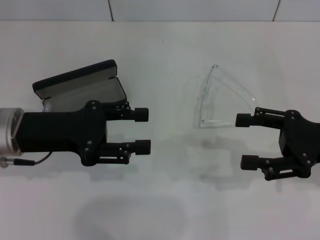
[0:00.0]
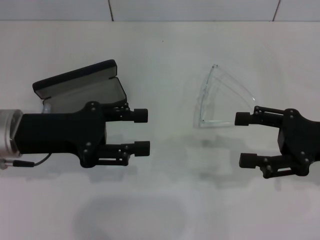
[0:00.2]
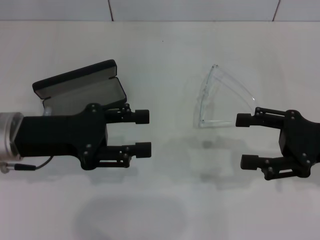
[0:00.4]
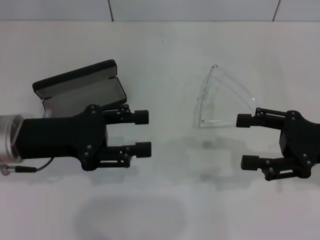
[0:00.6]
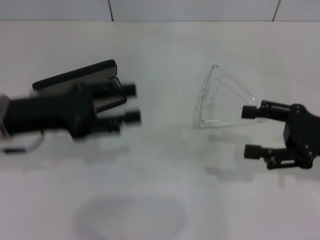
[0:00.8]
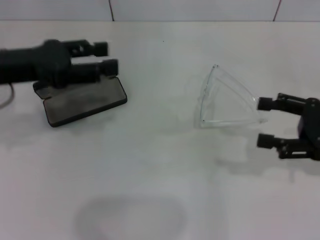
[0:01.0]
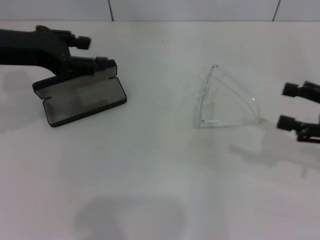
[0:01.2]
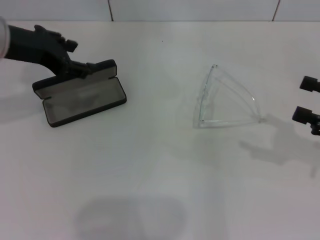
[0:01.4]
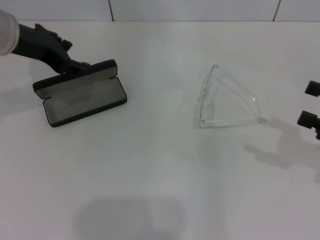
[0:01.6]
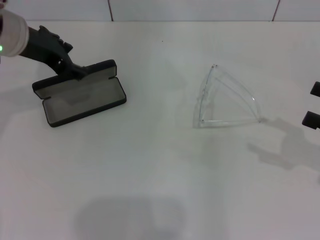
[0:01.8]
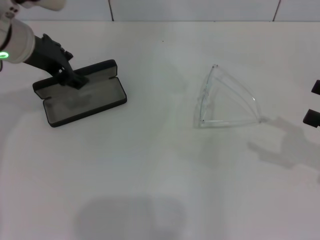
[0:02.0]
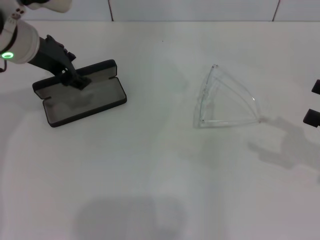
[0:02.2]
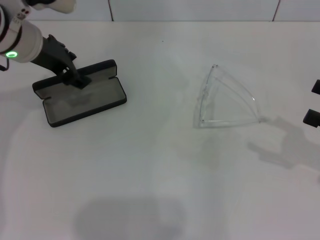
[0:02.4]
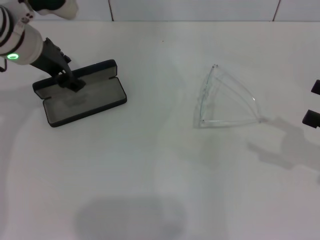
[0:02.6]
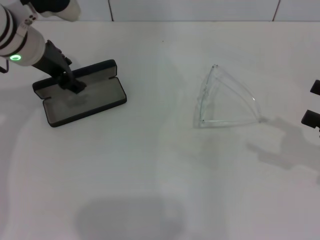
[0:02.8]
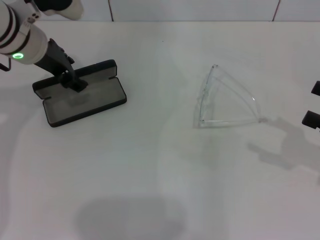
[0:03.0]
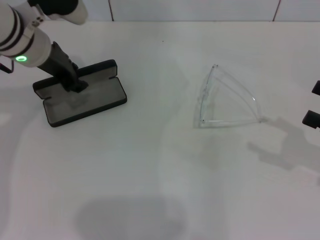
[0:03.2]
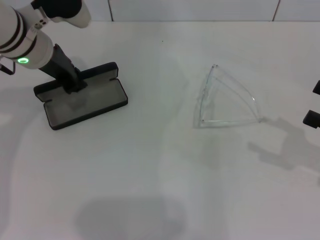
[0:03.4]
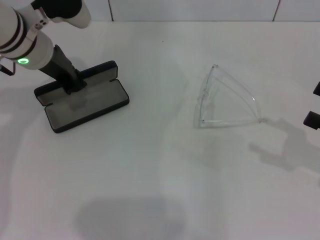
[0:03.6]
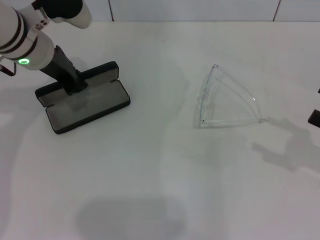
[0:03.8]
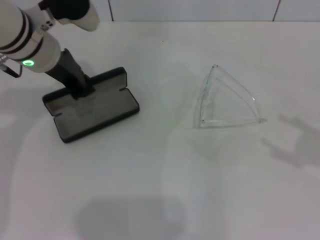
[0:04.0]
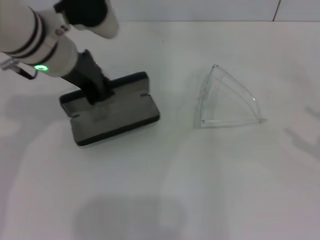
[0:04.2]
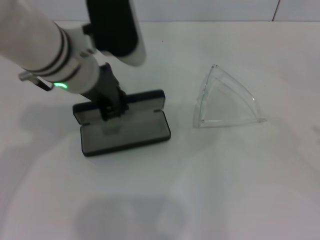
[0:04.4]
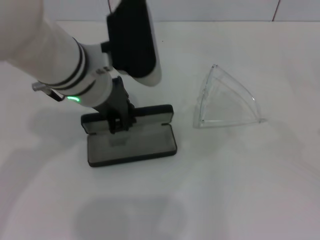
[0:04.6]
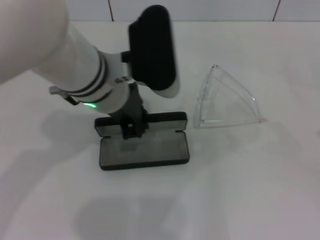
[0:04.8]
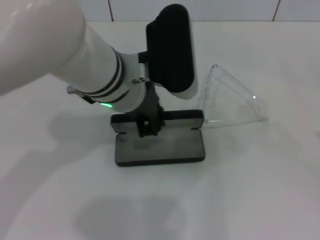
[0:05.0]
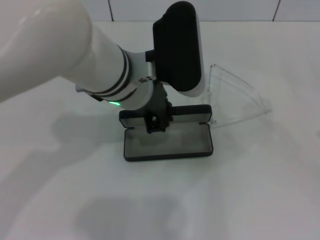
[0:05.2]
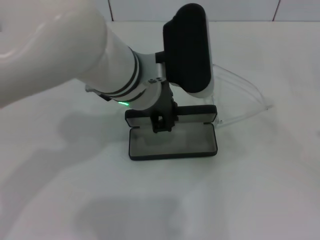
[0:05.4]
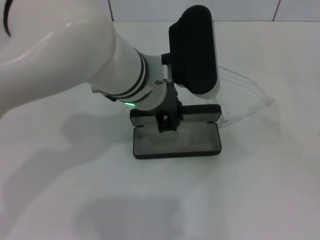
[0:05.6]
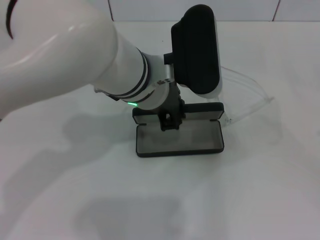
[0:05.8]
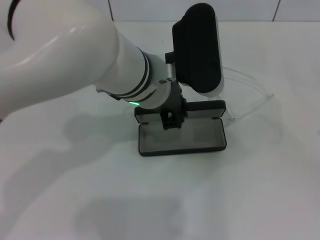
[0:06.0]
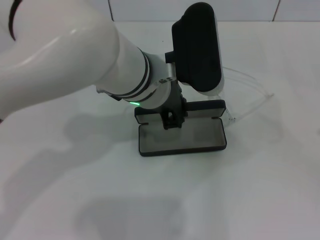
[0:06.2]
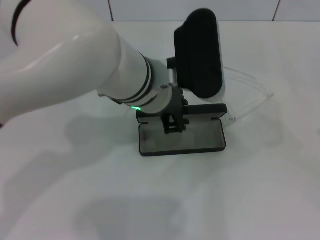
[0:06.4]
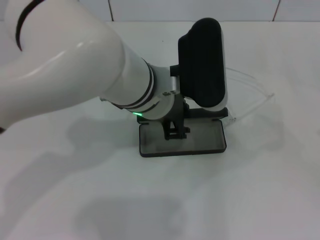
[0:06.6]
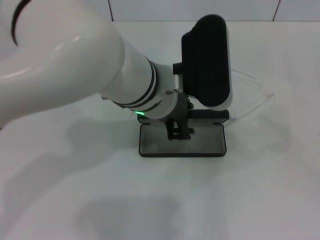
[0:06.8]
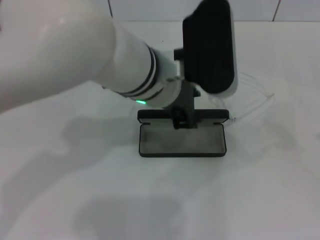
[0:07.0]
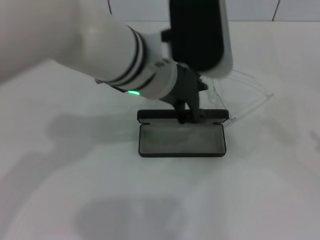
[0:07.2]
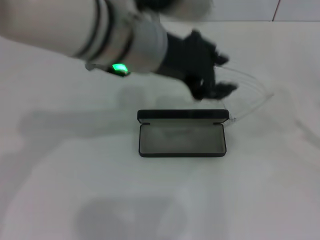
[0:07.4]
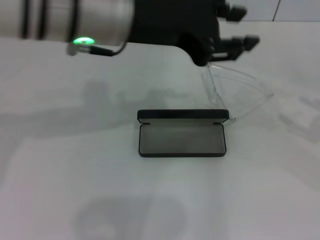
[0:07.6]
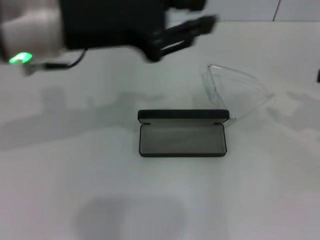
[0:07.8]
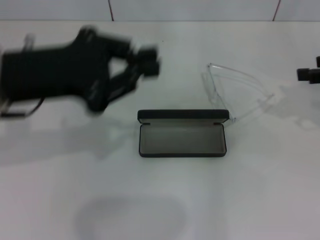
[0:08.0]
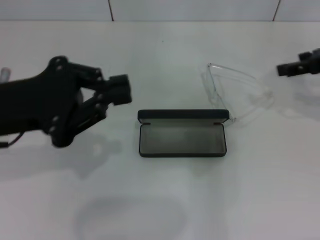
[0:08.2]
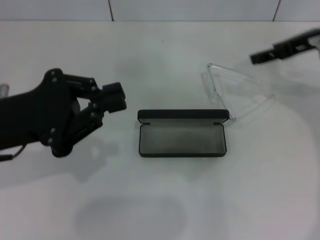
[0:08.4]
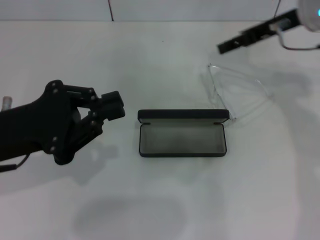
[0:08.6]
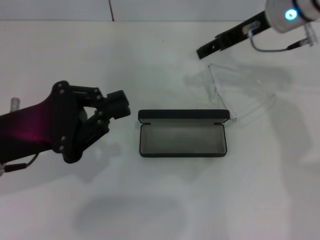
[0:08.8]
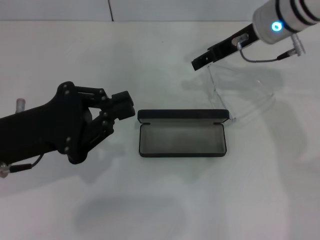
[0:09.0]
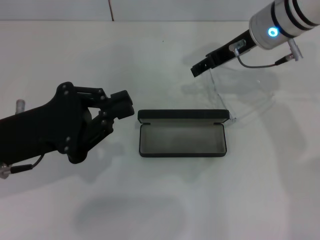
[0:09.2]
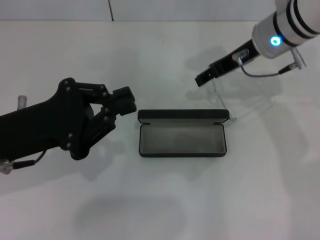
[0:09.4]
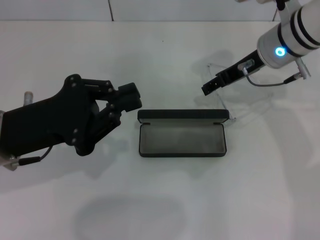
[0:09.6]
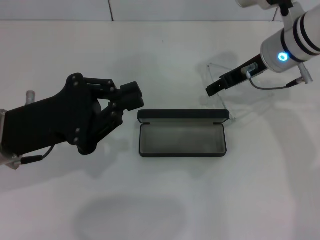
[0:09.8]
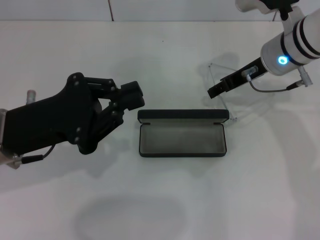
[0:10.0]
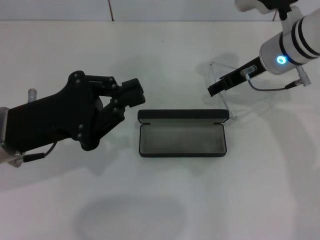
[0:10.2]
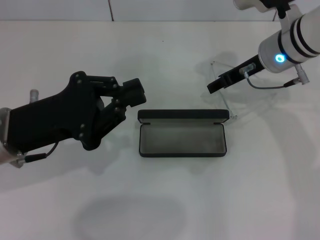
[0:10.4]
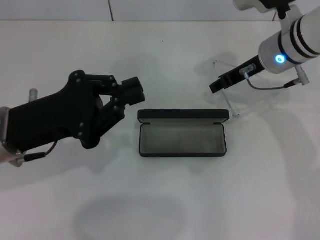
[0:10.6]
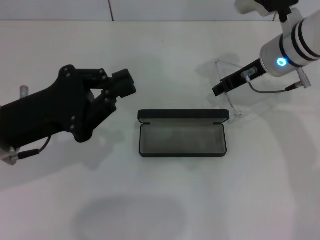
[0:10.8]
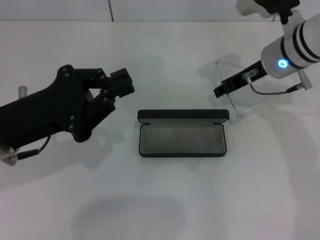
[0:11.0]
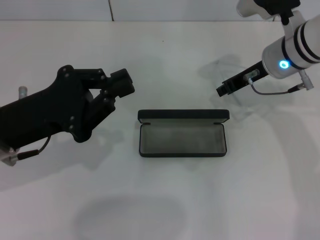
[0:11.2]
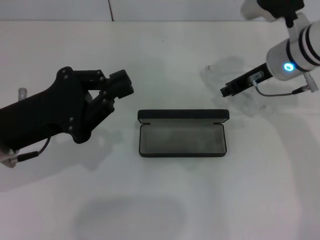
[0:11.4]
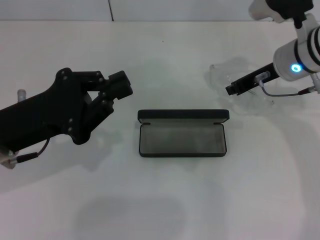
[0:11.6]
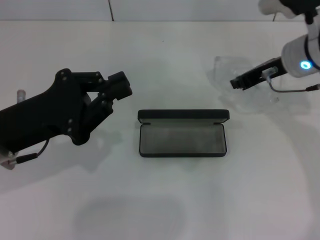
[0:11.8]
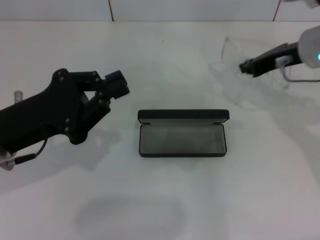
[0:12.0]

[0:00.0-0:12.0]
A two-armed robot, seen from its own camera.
Step, 0:00.0 to 0:03.6: Grab the glasses case with your left hand.
Step, 0:03.8 to 0:06.8: Place the glasses case in the center of the table with your left hand.
Step, 0:07.0 to 0:11.4: Grab the eyeglass frame with your right hand.
0:00.0 to 0:01.6: The right gripper shifts some 5 cm to the right. The left gripper is displaced forward and upward by some 15 cm.
0:01.6 to 0:03.0: The left gripper moves approximately 5 cm.
0:03.0 to 0:04.4: The grippers both shift to the right and backward by some 10 cm. The left gripper closes up.
0:04.4 to 0:06.0: The left gripper heads to the right, covering roughly 10 cm.
0:06.0 to 0:07.6: The right gripper moves forward, about 10 cm; the left gripper moves upward and to the left, about 10 cm.
0:07.6 to 0:09.0: The right gripper travels to the left and forward by roughly 30 cm. Meanwhile the left gripper moves to the left, downward and backward, roughly 20 cm, and closes up.
0:09.0 to 0:10.4: The grippers stay close to where they were, moving slightly.
0:10.4 to 0:12.0: The right gripper shifts by some 5 cm, and closes its fingers.

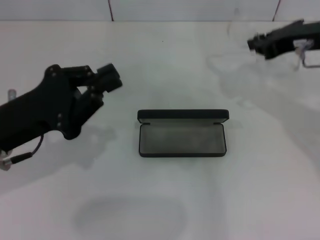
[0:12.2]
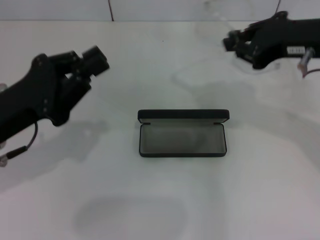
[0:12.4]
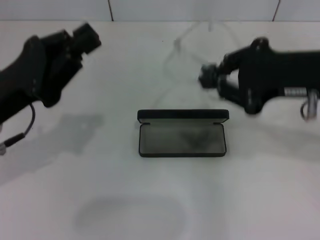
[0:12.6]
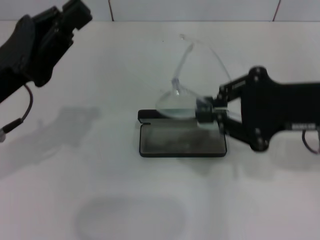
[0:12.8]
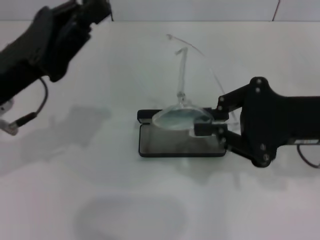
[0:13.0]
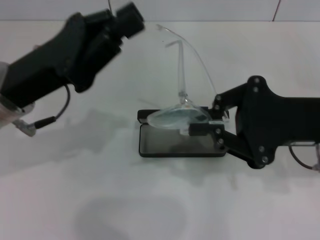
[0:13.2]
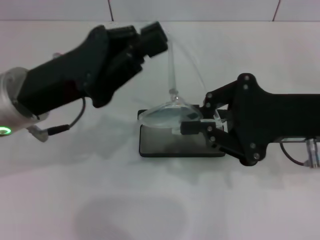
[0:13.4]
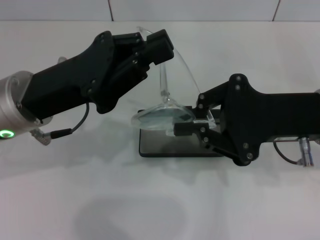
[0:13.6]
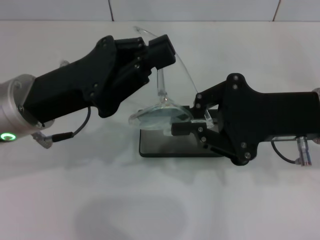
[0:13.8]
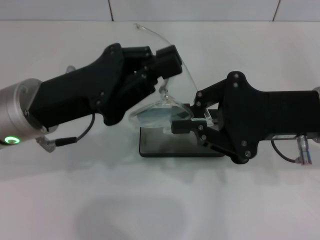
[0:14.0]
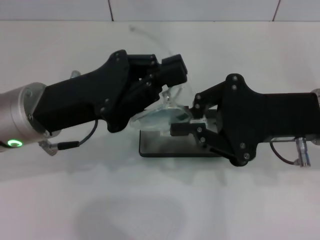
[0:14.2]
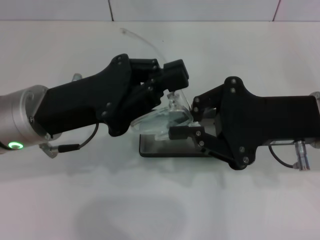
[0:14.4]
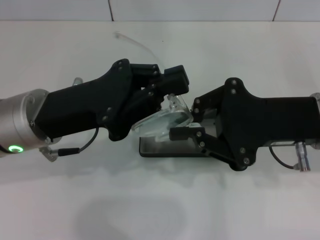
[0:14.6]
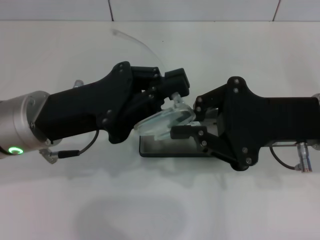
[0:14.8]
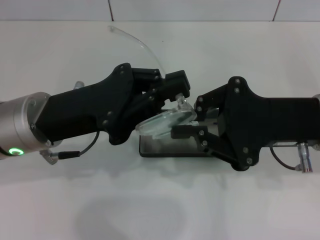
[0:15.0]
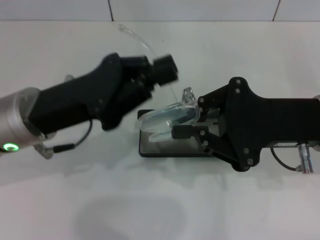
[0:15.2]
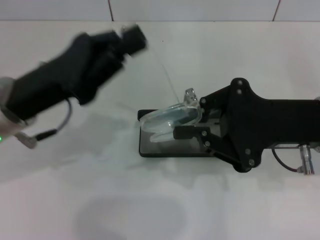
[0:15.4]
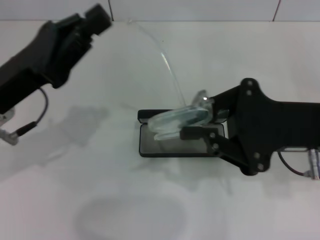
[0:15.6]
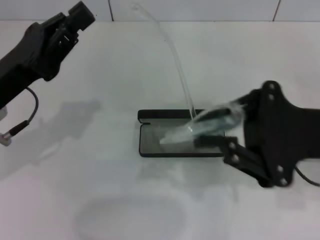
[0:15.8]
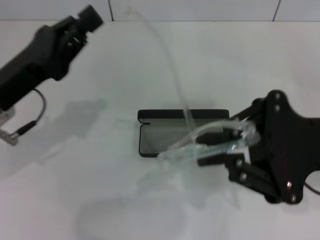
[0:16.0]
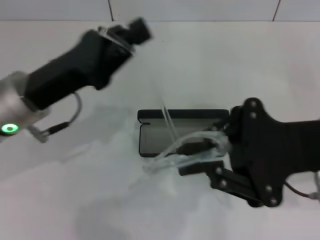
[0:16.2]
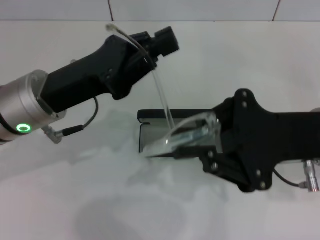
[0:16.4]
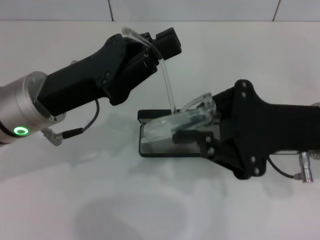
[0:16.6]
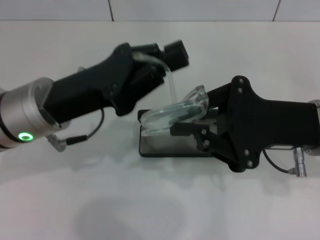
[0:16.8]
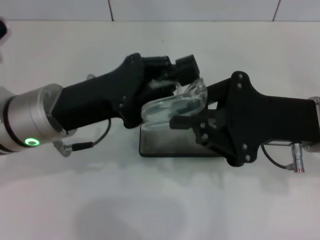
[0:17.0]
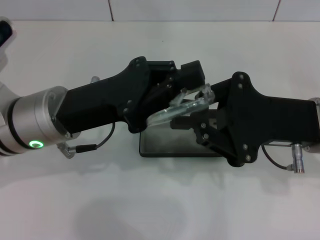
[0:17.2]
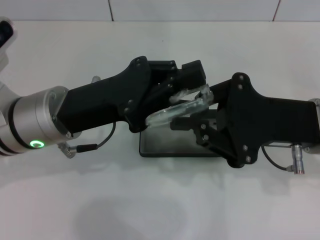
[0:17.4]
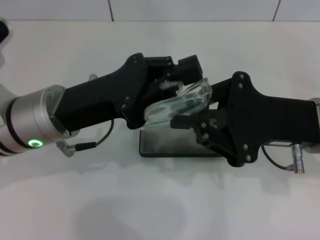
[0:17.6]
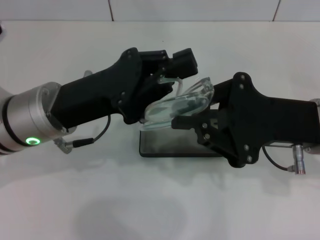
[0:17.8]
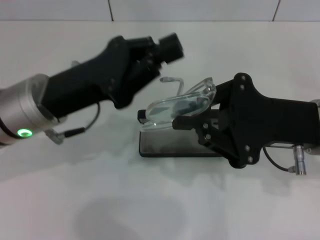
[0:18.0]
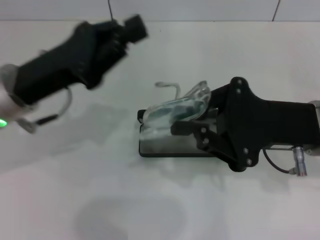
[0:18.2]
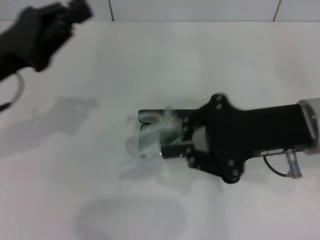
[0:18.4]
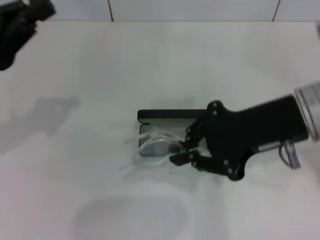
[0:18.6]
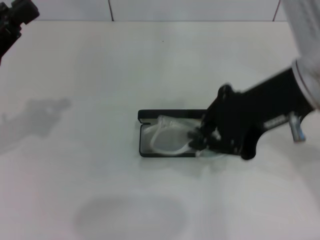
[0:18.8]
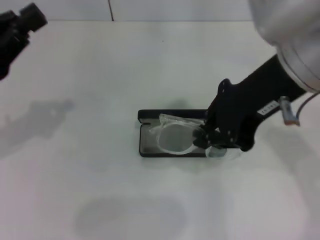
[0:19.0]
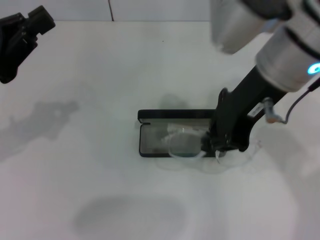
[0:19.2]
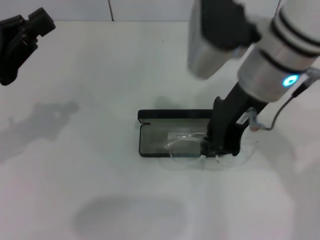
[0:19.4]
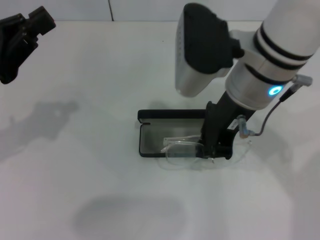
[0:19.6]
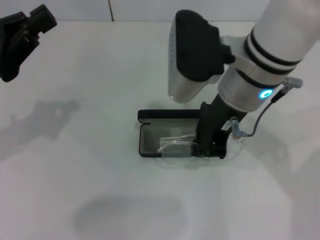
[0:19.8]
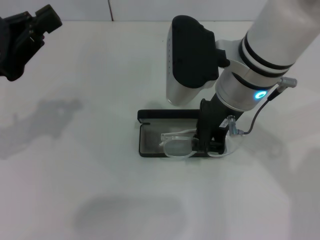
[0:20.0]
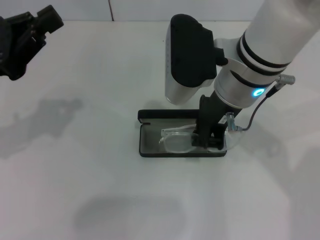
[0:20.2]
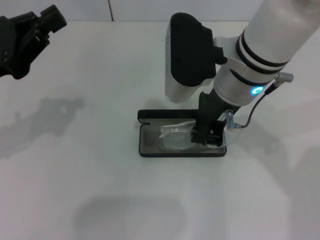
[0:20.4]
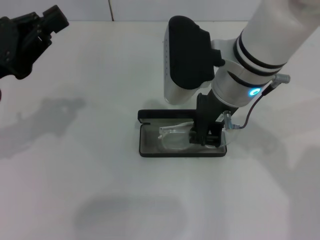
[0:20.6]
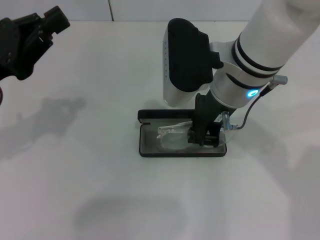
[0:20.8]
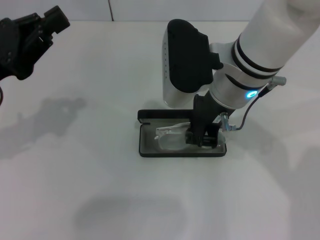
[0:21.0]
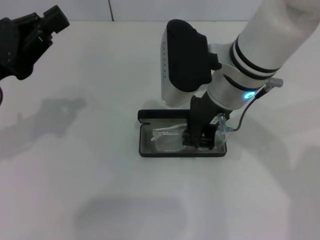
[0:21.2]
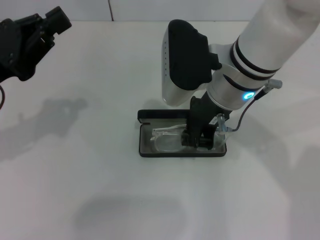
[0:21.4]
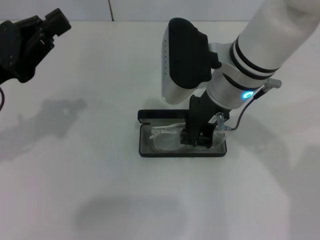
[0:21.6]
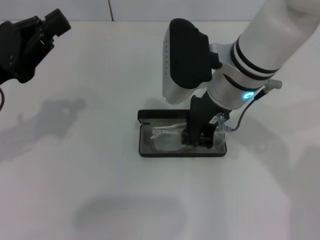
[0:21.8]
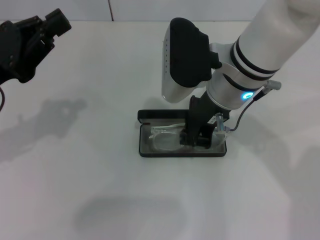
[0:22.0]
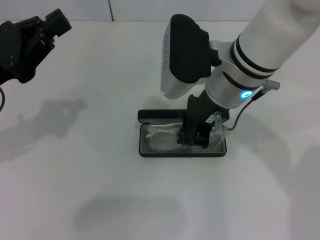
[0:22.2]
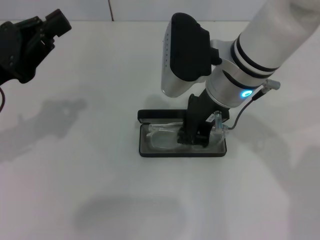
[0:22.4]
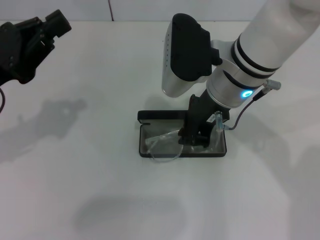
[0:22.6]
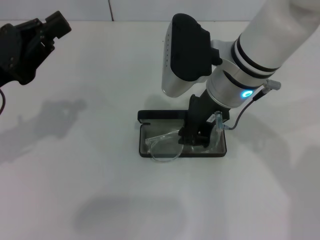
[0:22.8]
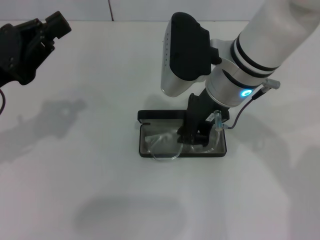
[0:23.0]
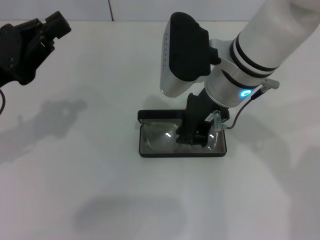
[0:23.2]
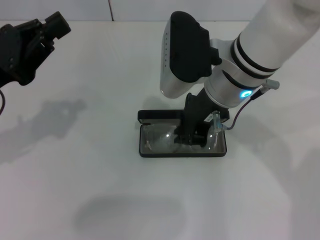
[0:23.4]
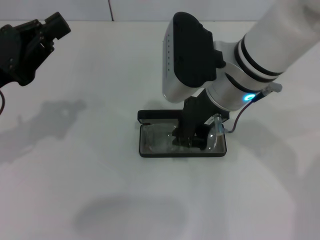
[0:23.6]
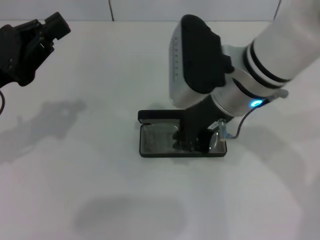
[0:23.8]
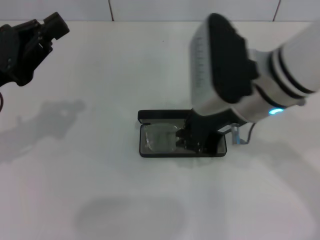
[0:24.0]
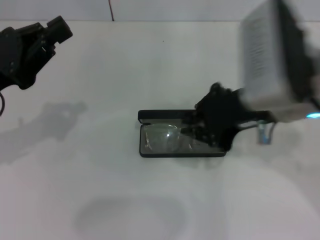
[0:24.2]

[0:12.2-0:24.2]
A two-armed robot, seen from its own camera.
Step, 0:12.2 to 0:17.8: Fold the frame with your left hand.
Step, 0:18.0 to 0:23.4: Put the glasses into the case with your right hand.
0:12.2 to 0:13.8: The left gripper shifts about 5 cm to the right; the right gripper goes roughly 10 cm backward.
0:13.8 to 0:15.2: The grippers make only small movements.
0:18.2 to 0:19.8: The left gripper is displaced to the left by some 10 cm, while the right gripper shifts about 15 cm to the left, upward and forward.
0:19.8 to 0:22.6: There are only small adjustments of the grippers.
0:22.6 to 0:24.2: The right gripper is displaced to the right and backward by approximately 10 cm.
